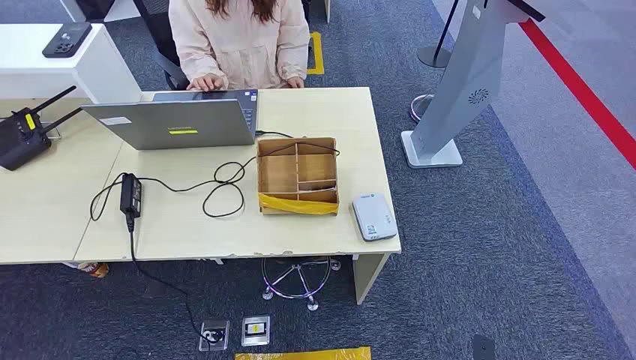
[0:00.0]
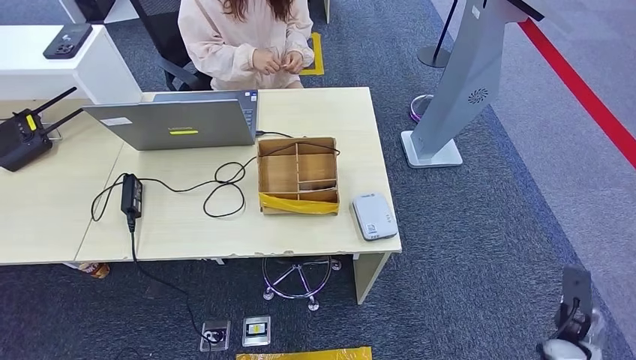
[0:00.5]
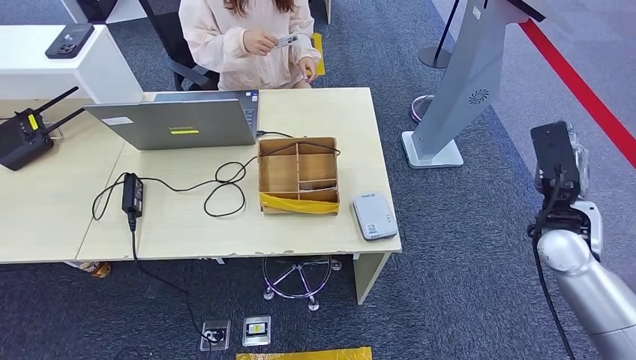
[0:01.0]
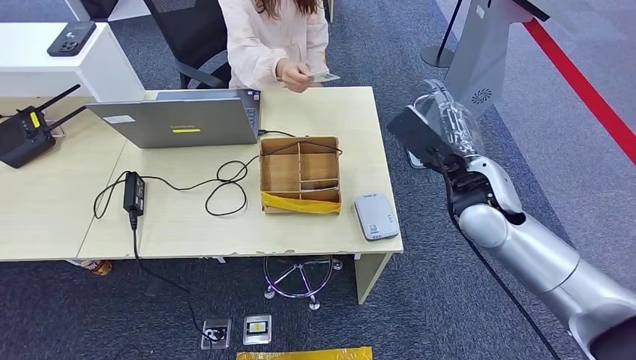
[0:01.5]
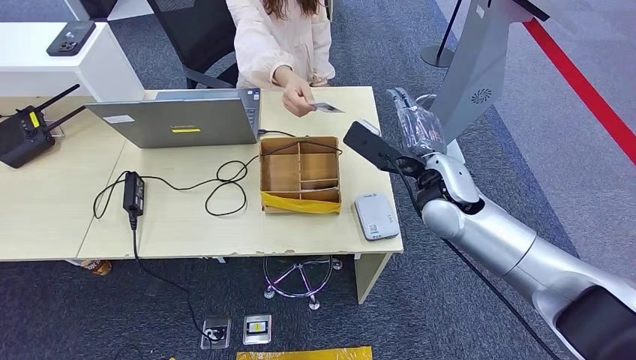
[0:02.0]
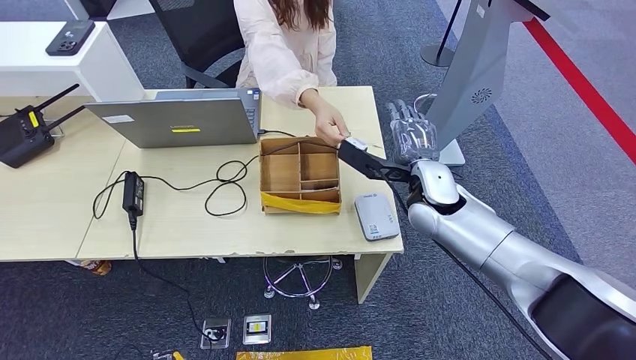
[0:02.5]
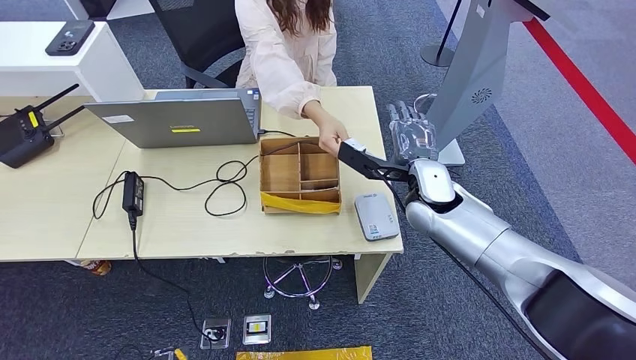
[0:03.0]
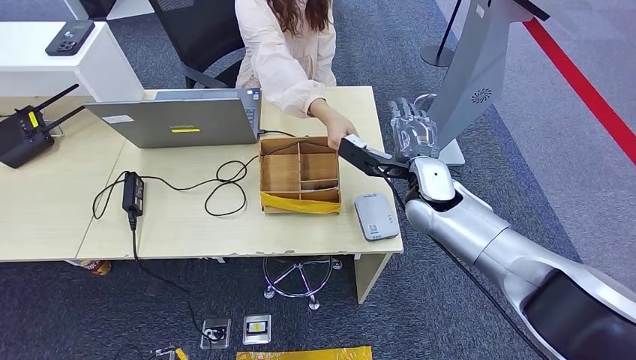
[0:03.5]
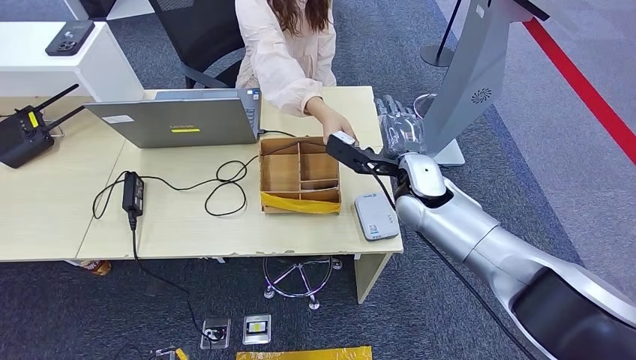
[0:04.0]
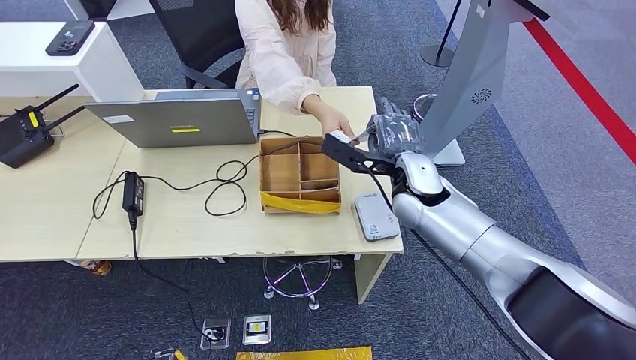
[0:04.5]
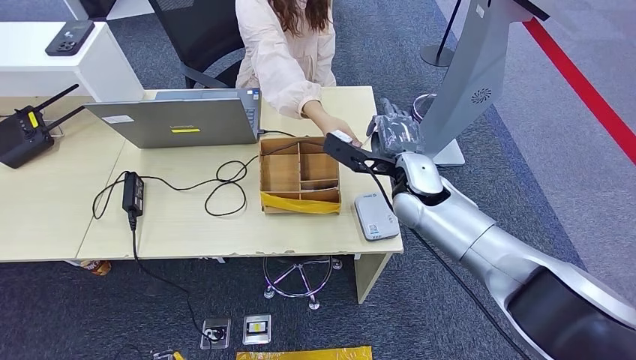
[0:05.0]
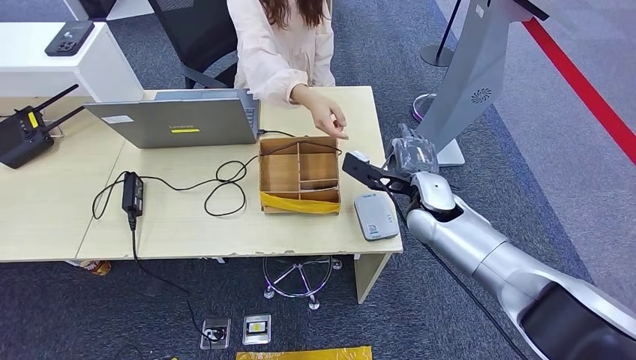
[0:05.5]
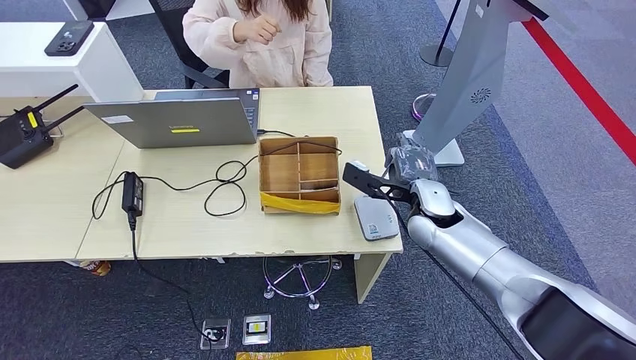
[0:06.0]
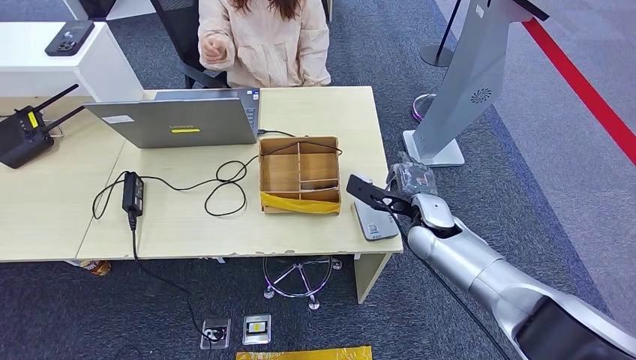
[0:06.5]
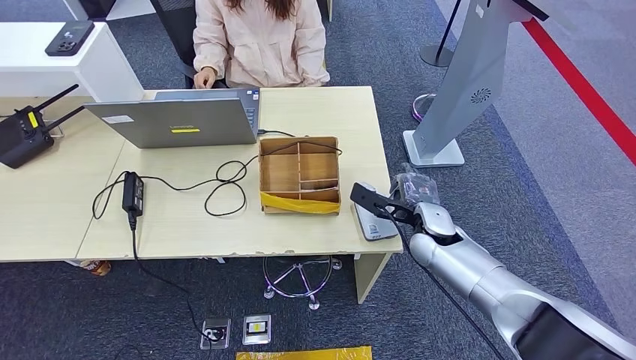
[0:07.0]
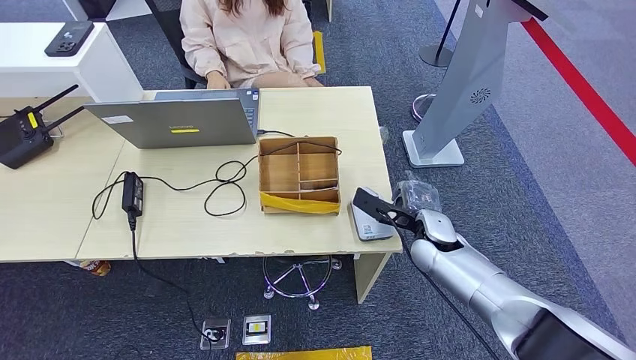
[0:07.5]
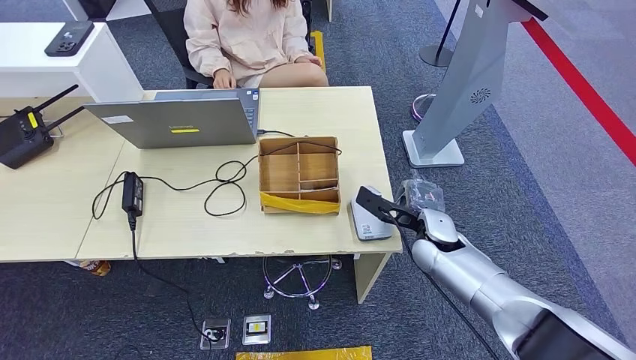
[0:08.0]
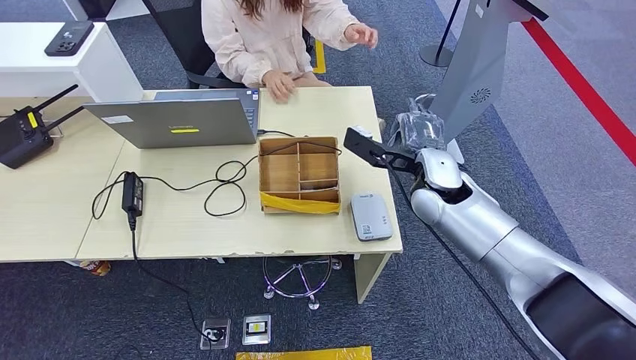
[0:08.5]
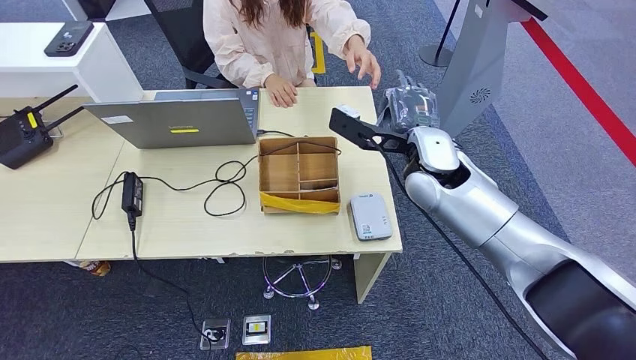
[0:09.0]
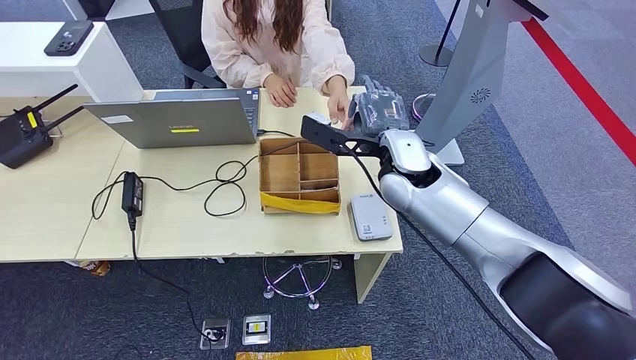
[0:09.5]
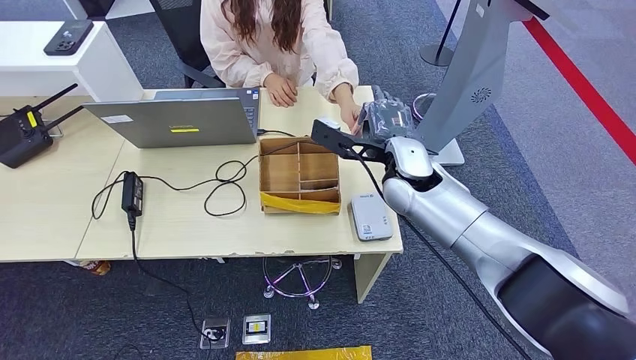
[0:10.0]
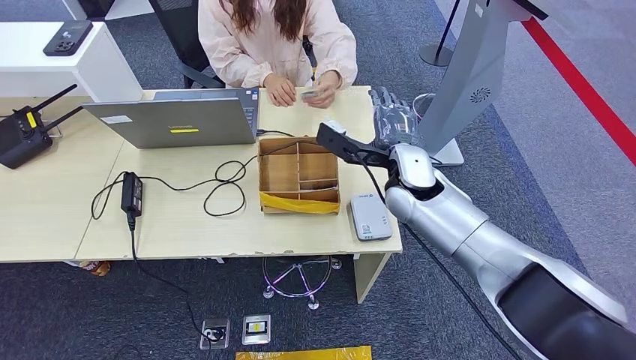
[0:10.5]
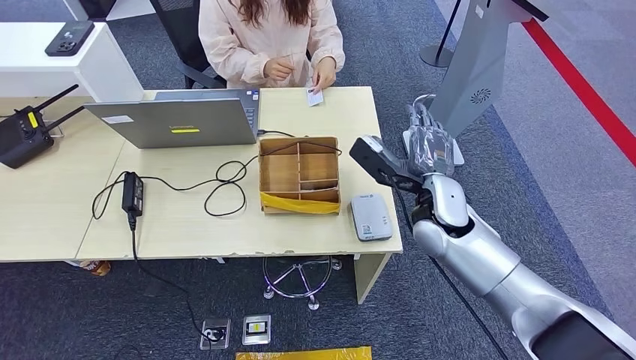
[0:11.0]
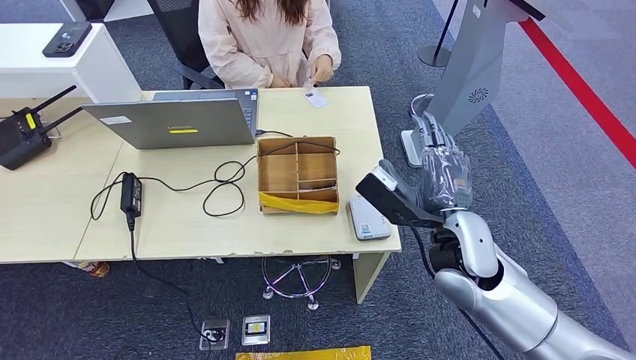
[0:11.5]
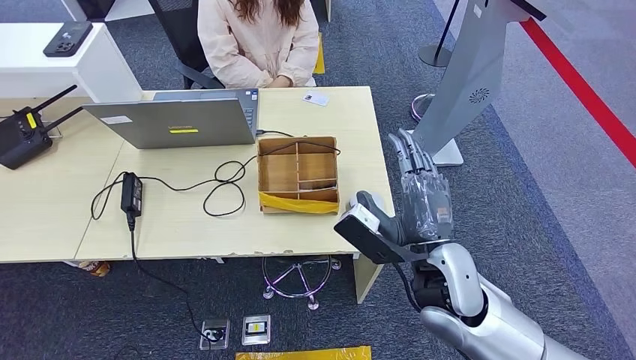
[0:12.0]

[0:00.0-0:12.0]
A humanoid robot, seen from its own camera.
Step, 0:00.0 to 0:05.0: Take the ID card from the person's hand.
Step, 0:05.5 to 0:09.5: Place the ID card on the card reader.
0:04.0 to 0:06.0: The right hand ends up about 5 cm from where it was.
0:06.0 to 0:08.0: The right hand is displaced downward by roughly 5 cm.

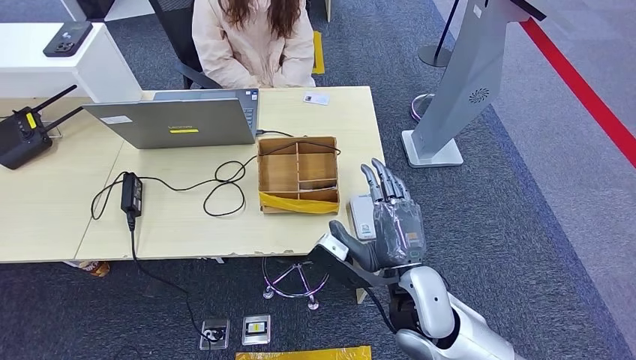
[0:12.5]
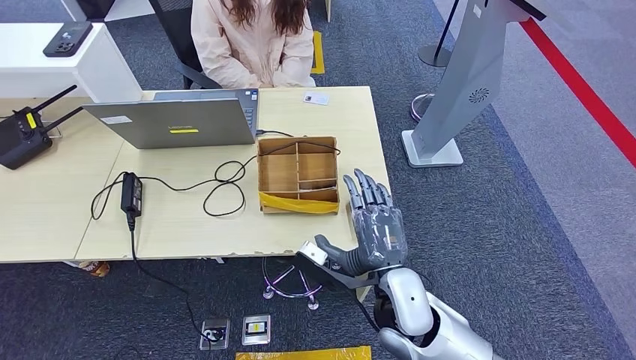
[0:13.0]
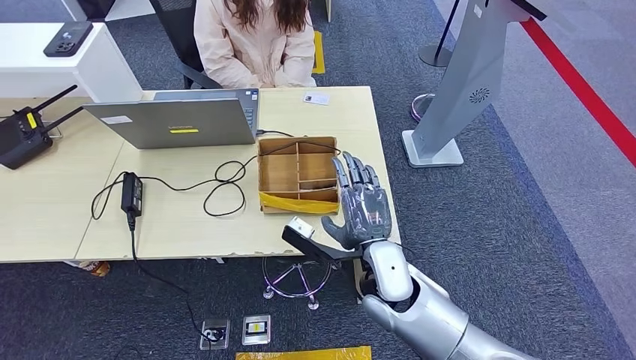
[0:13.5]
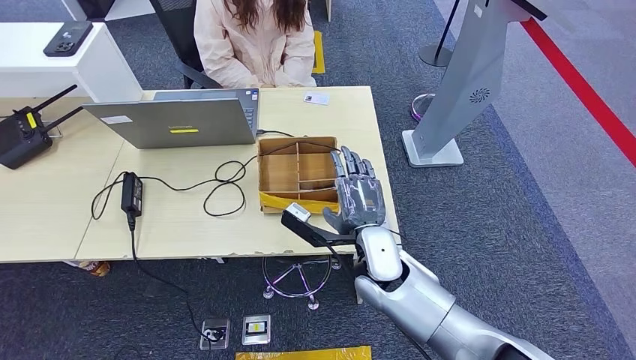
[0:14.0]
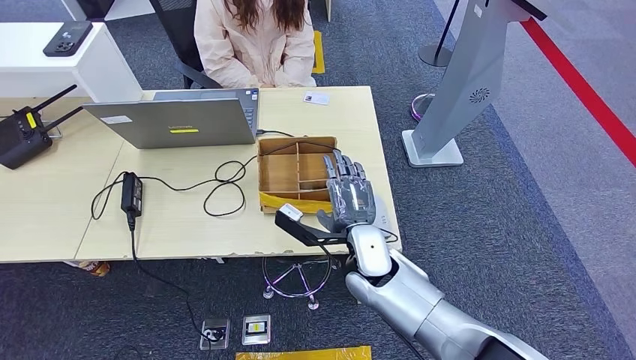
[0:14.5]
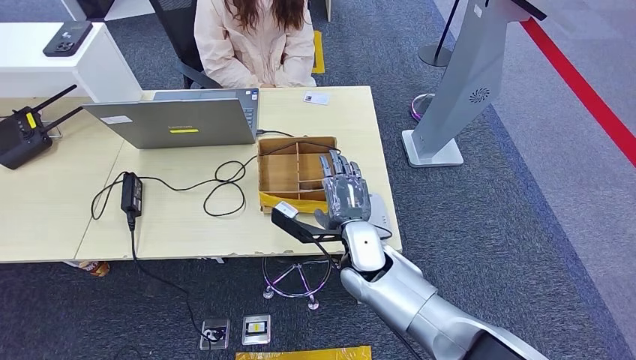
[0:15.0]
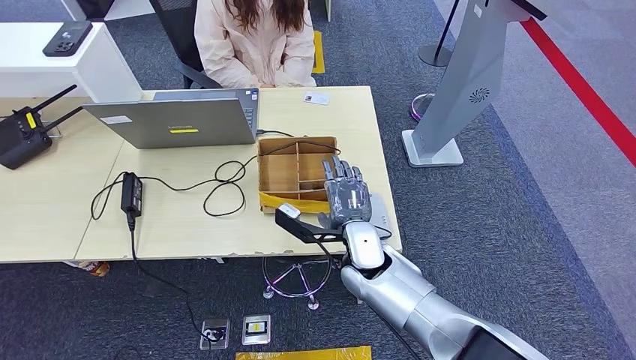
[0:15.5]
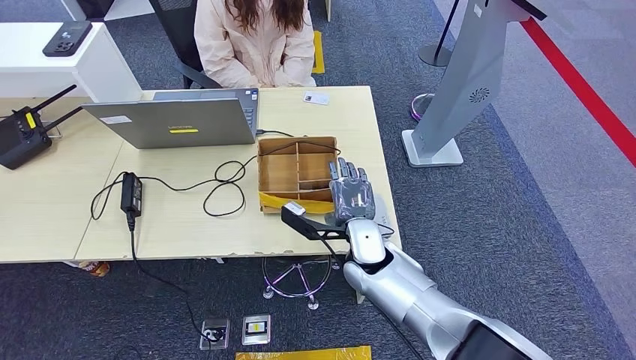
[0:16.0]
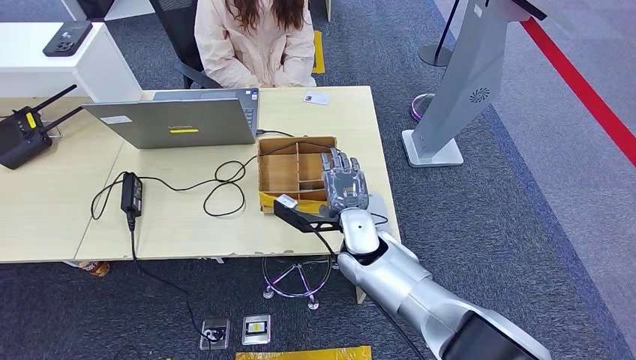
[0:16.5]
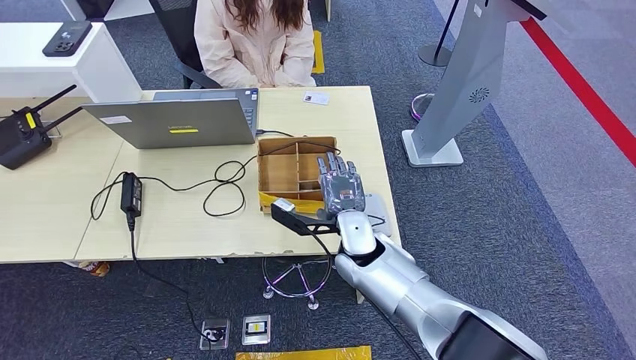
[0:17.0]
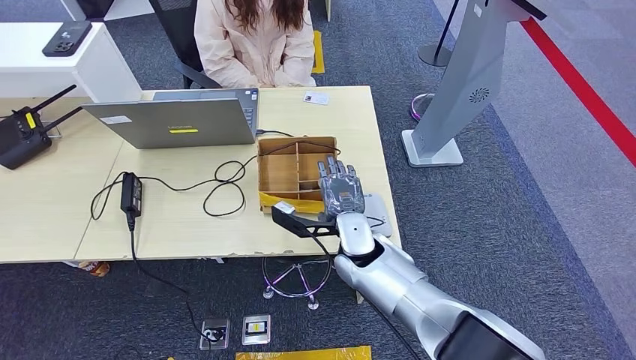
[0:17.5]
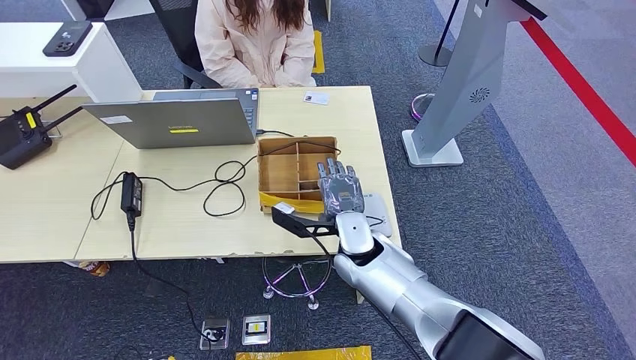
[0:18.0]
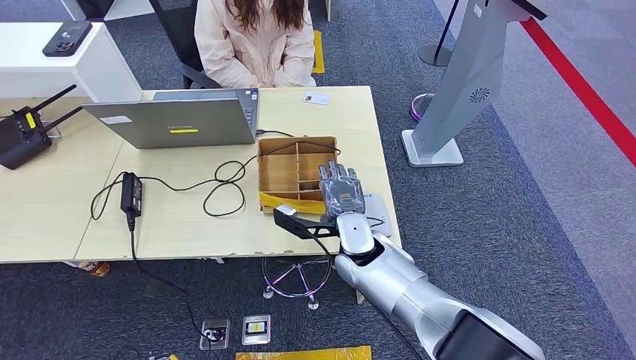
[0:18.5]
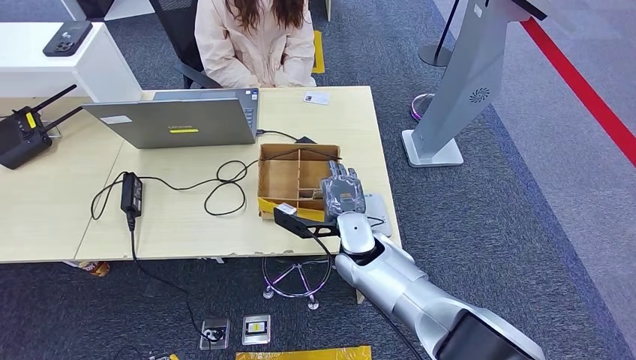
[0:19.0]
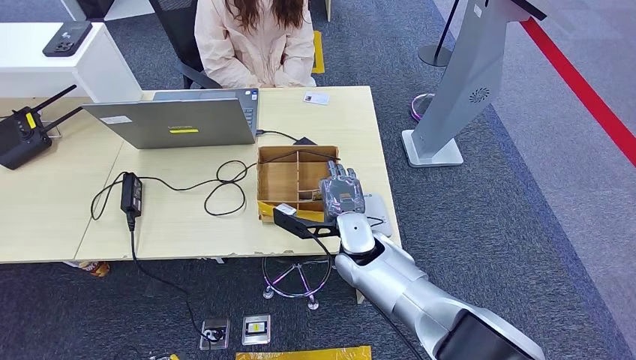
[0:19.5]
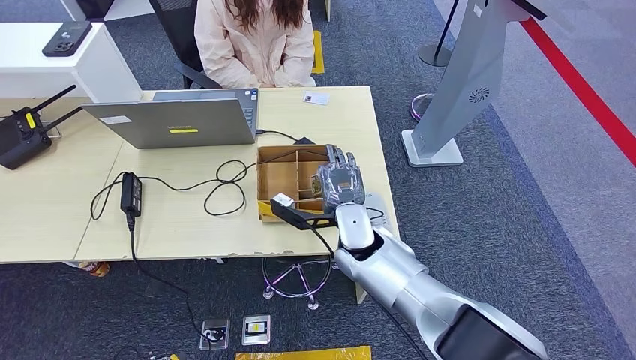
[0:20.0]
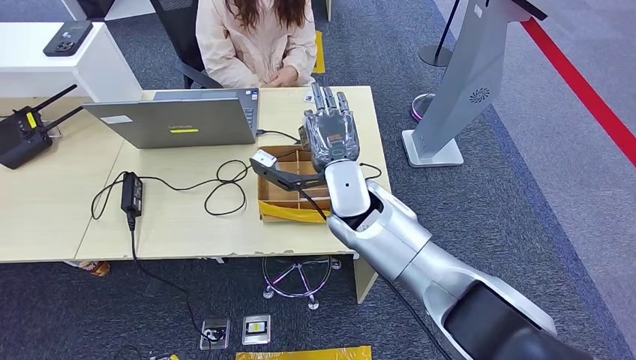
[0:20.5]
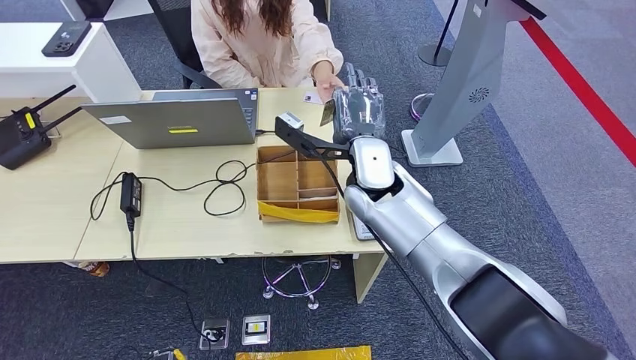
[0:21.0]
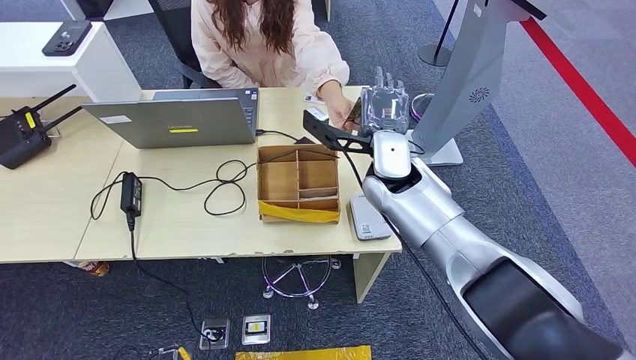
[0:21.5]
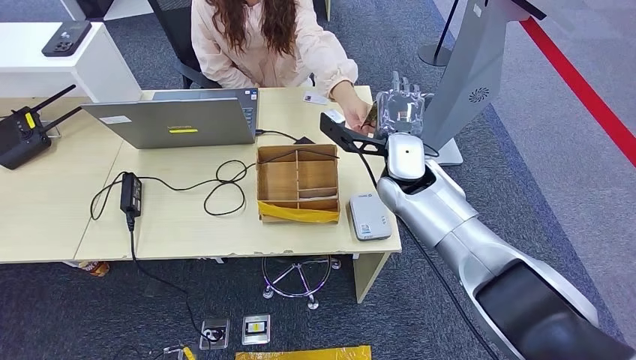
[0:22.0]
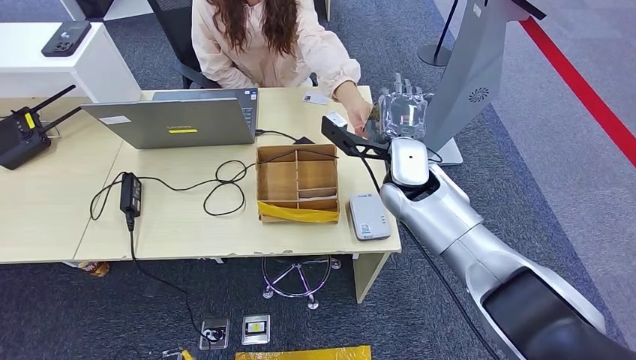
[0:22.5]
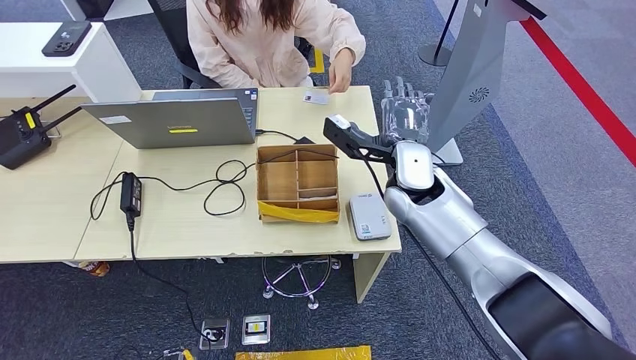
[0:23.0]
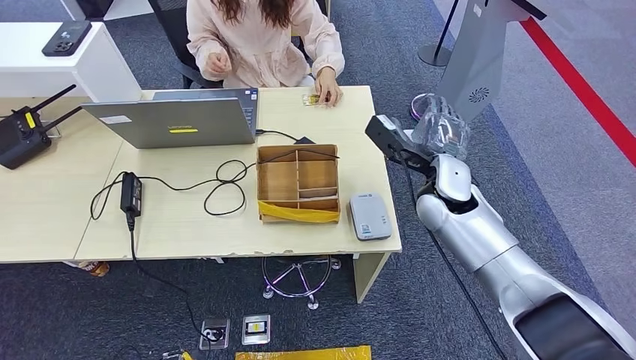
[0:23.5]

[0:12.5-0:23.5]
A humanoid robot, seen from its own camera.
0:12.5 to 0:14.5: The right hand moves forward, some 10 cm.
0:14.5 to 0:20.0: The hands stay close to where they were, moving slightly.
0:21.5 to 0:23.5: The right hand travels to the right by some 10 cm.
